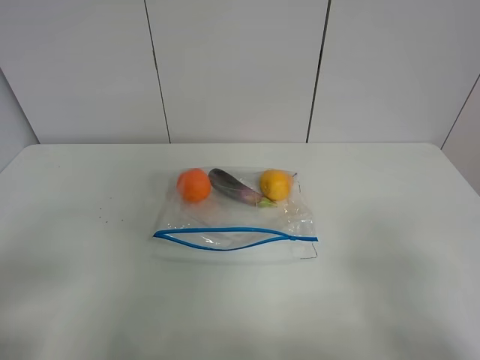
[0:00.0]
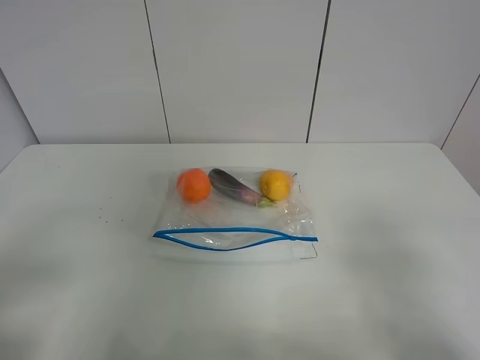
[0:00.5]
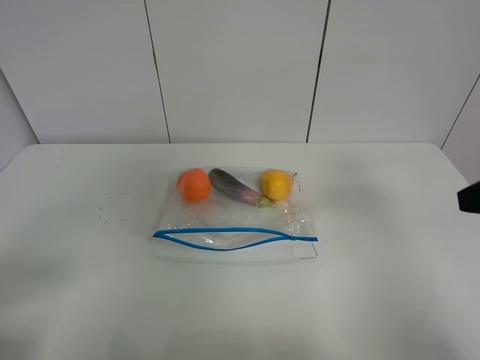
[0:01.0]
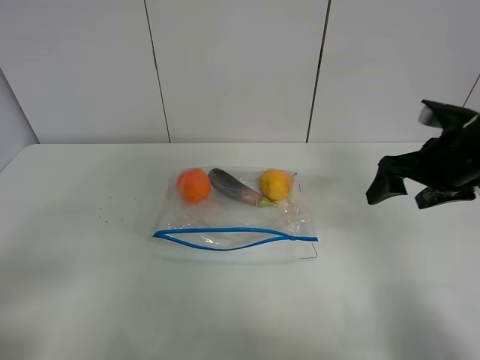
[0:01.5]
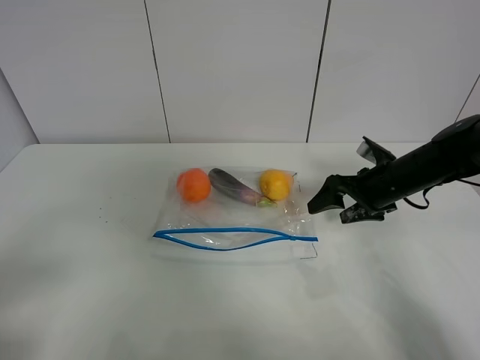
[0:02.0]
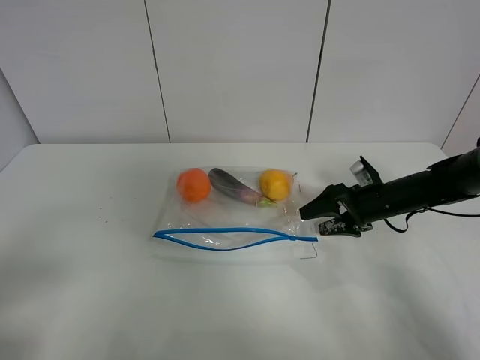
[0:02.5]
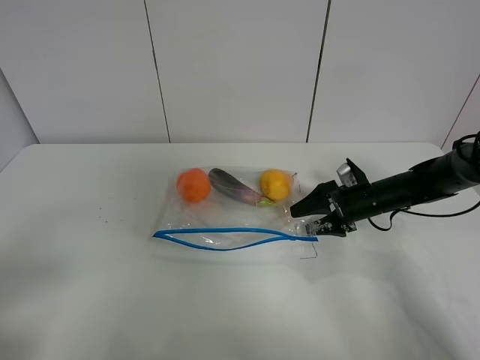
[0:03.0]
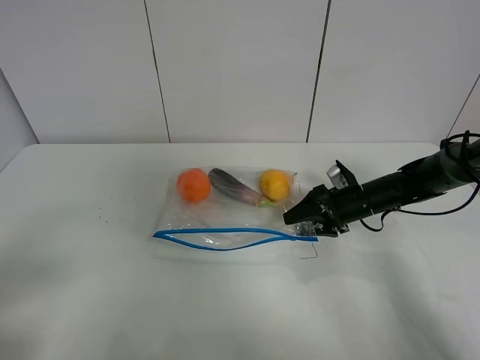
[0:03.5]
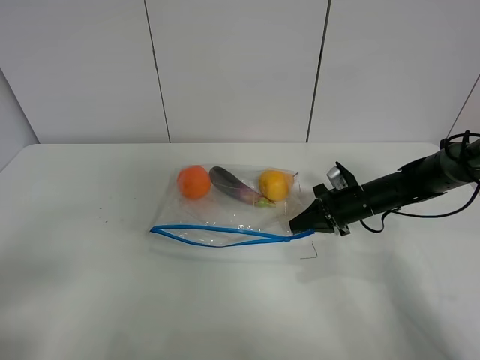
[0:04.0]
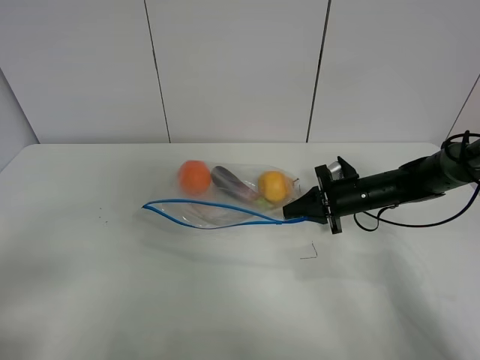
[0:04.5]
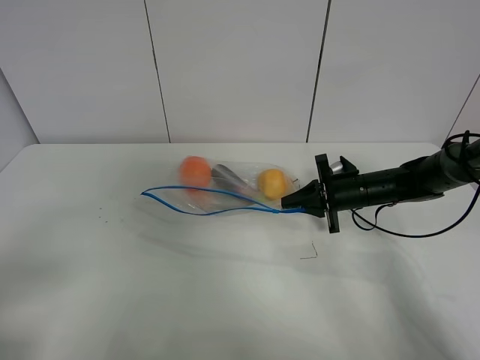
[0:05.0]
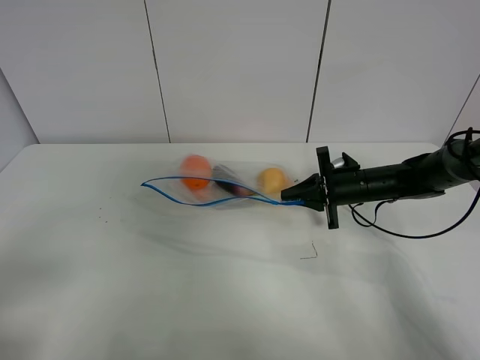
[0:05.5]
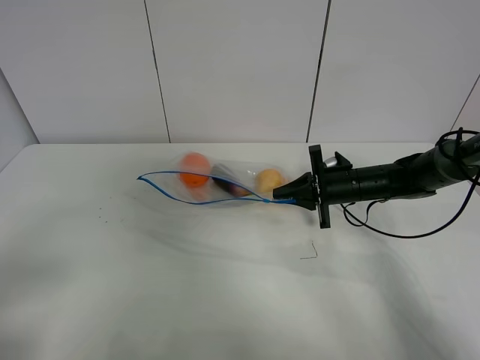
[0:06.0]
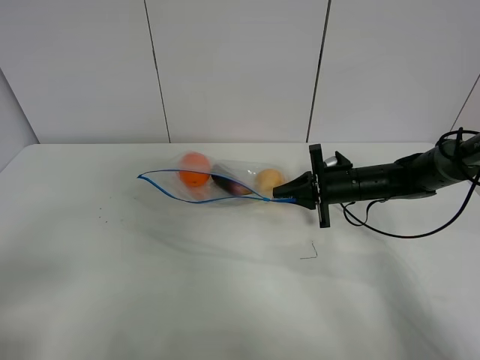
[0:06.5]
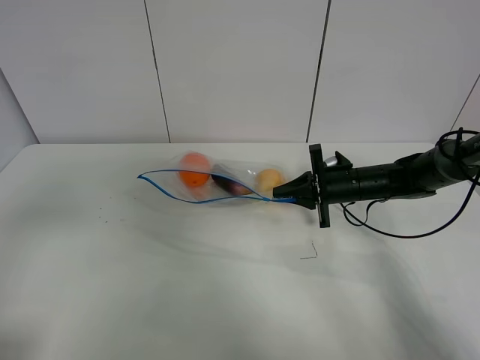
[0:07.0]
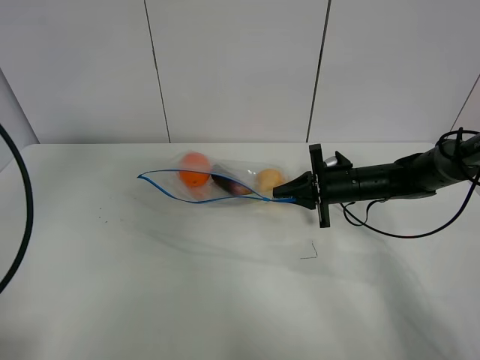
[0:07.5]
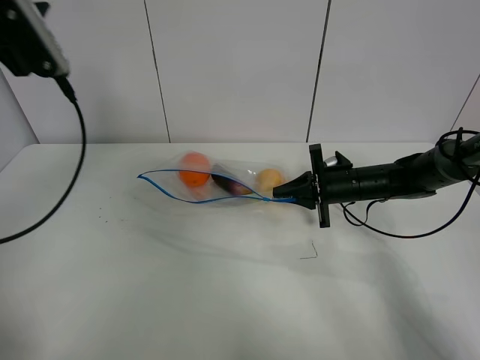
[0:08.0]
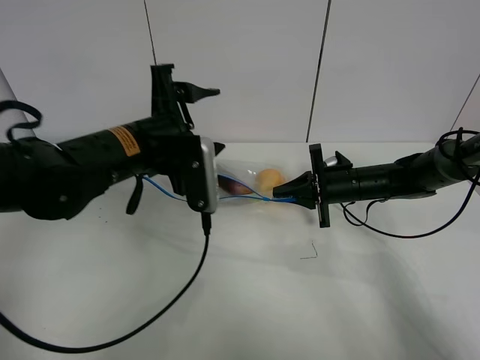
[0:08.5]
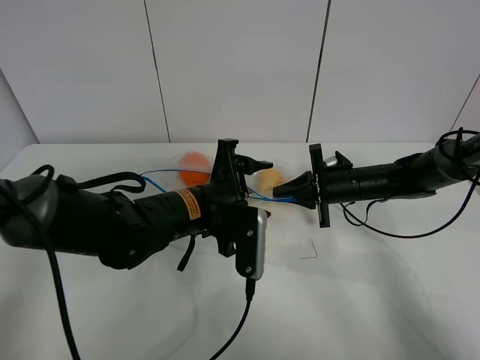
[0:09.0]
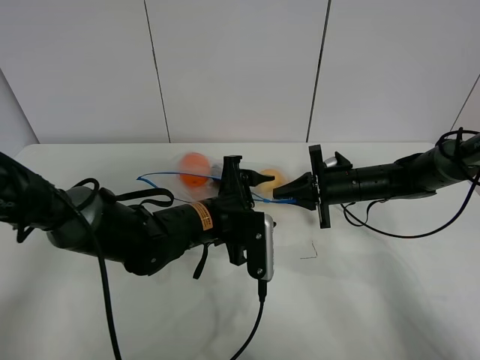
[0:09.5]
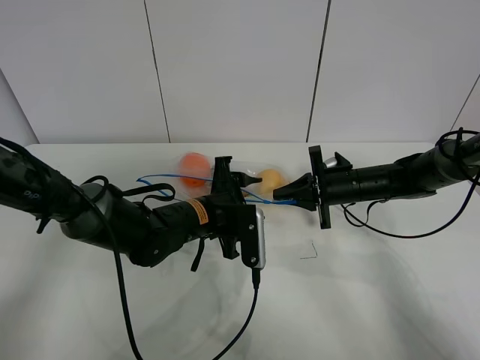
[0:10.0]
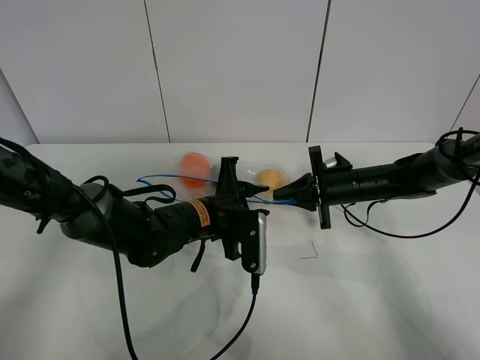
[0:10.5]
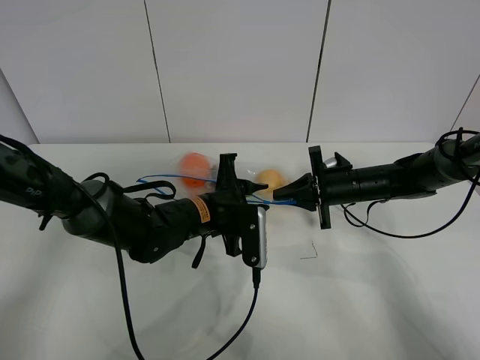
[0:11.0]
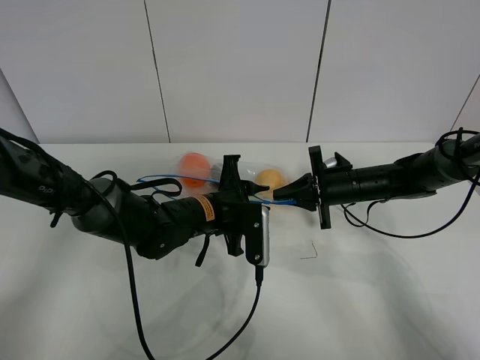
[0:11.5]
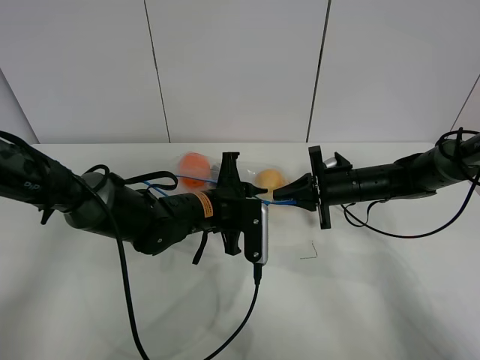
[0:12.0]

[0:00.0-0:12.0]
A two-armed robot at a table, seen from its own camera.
Step, 0:00.0 to 0:03.5: Grasp the fruit bag with right gripper.
Step, 0:04.0 to 0:06.0: Lift the fruit bag with your right gripper.
0:00.0 to 0:02.0: The right gripper goes some 35 cm forward.
0:02.0 to 0:04.0: The right gripper travels downward by about 5 cm, and closes its fingers.
0:06.0 to 0:08.0: The left gripper travels forward and upward by roughly 30 cm.
0:08.0 to 0:10.0: The left gripper heads downward and to the right, covering roughly 35 cm.
0:10.0 to 0:12.0: The left gripper closes up.

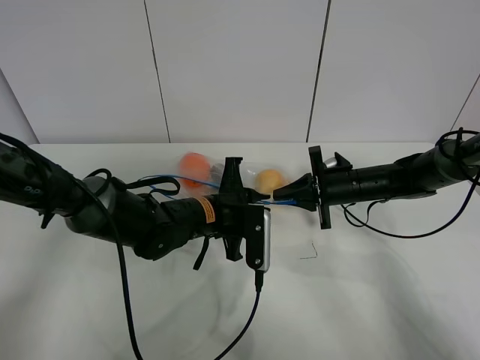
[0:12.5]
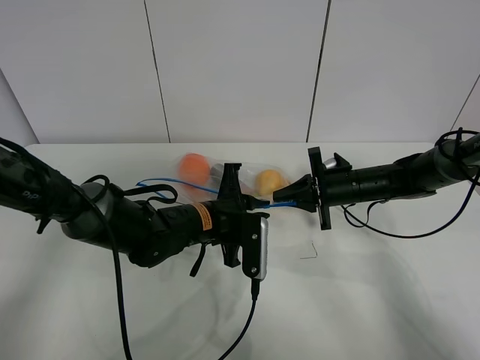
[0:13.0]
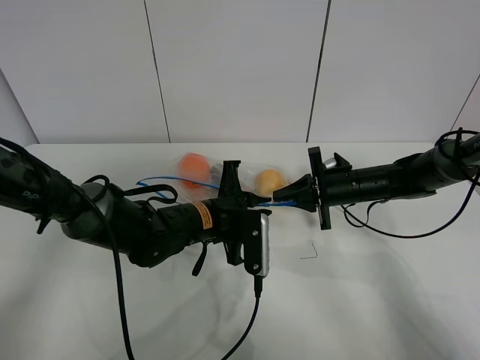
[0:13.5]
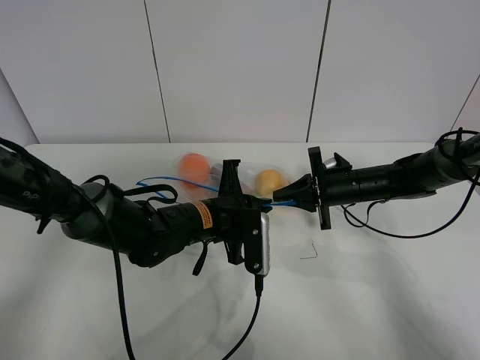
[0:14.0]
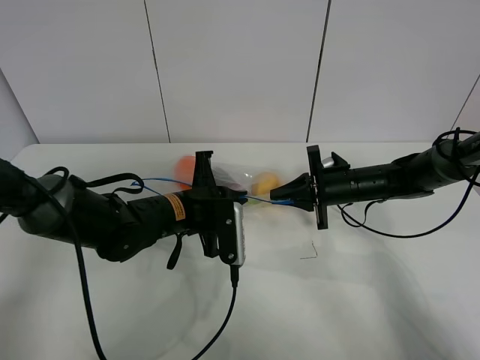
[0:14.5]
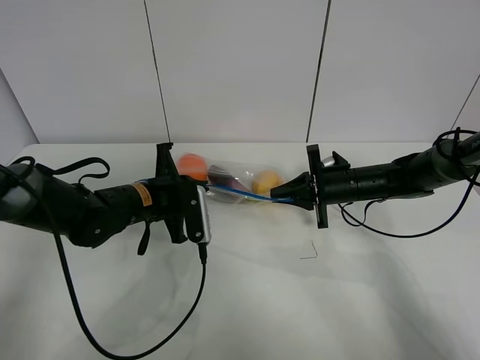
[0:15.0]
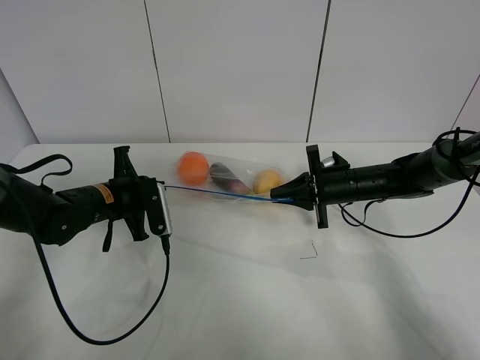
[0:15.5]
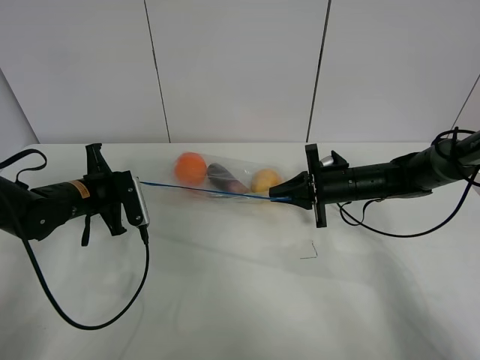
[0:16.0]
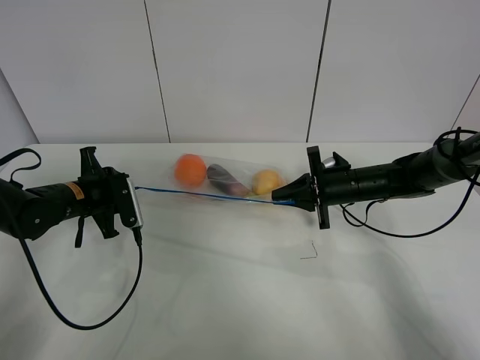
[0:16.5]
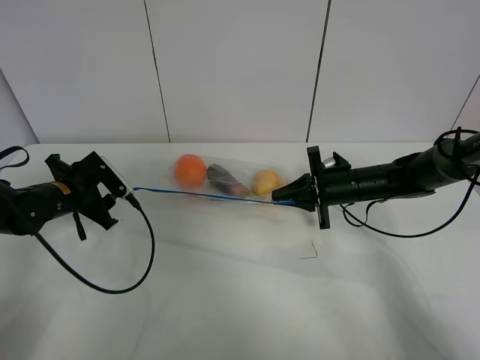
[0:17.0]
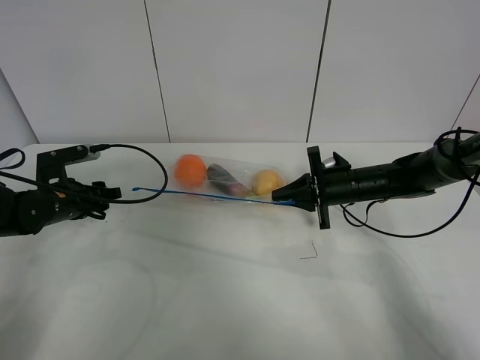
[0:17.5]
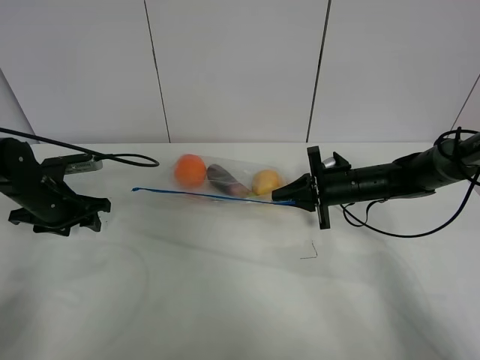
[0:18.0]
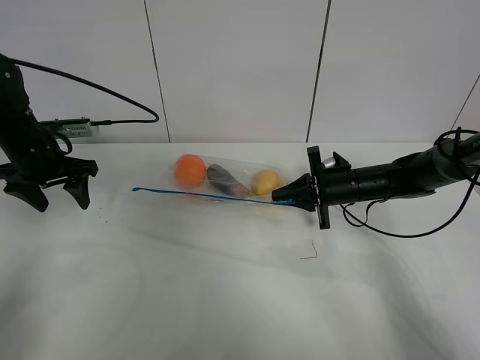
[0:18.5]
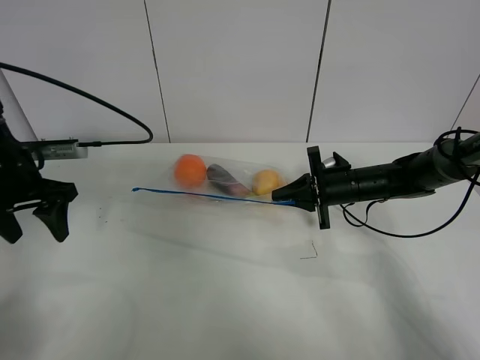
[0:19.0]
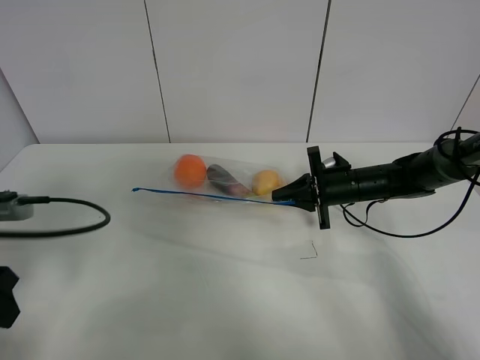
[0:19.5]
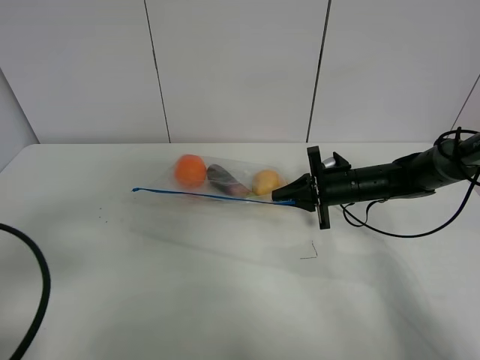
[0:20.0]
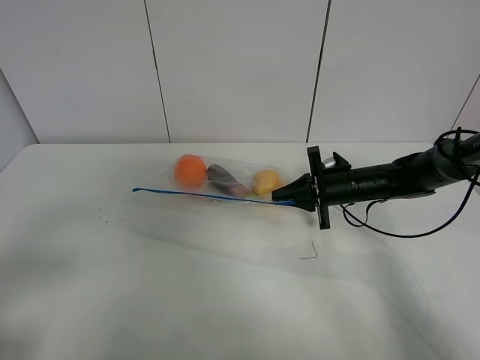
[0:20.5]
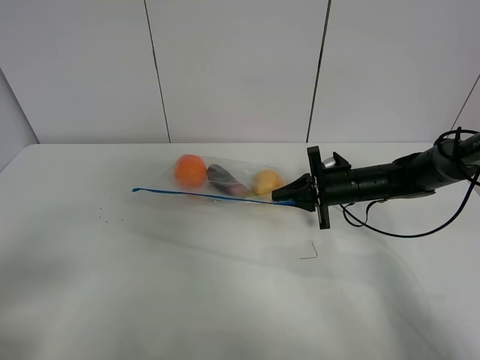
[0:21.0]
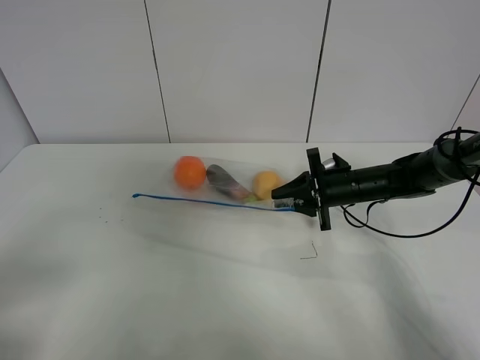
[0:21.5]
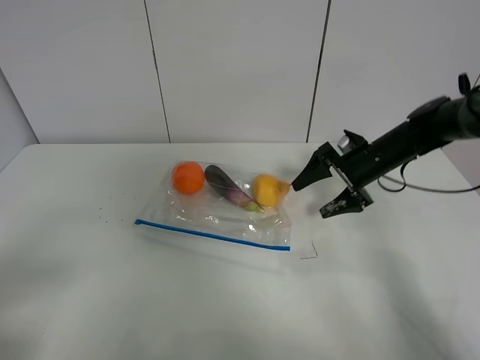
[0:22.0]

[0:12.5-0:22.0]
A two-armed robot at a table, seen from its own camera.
Step, 0:12.5 to 0:16.5: Pull the fruit bag with left gripper.
Step, 0:17.0 to 0:22.0: Place the fruit bag with right gripper.
0:12.5 to 0:14.5: The grippers make only small movements.
0:14.5 to 0:16.5: The left gripper is displaced to the left by approximately 15 cm, and opens.
0:16.5 to 0:18.0: The left gripper heads to the left, covering roughly 5 cm.
0:18.0 to 0:20.0: The left gripper is displaced backward and upward by approximately 30 cm.
0:20.0 to 0:22.0: The left gripper is displaced backward by some 10 cm. Meanwhile the right gripper travels upward by some 5 cm, and opens its fingers.

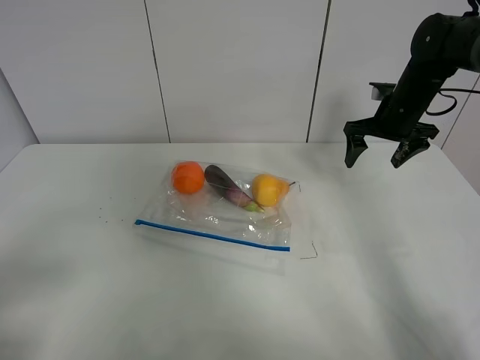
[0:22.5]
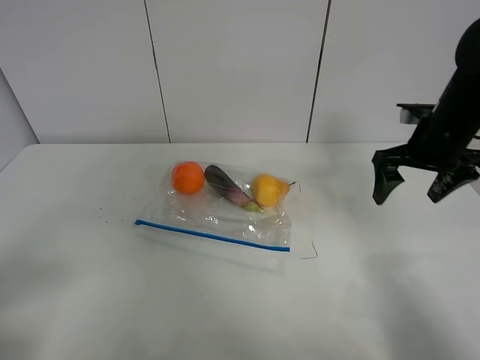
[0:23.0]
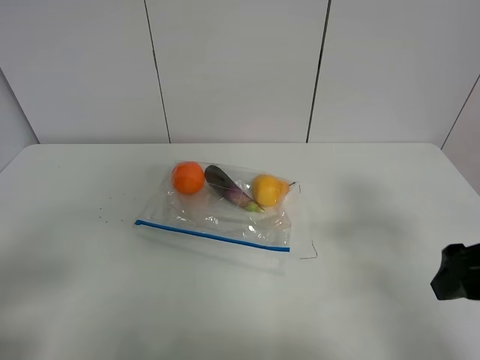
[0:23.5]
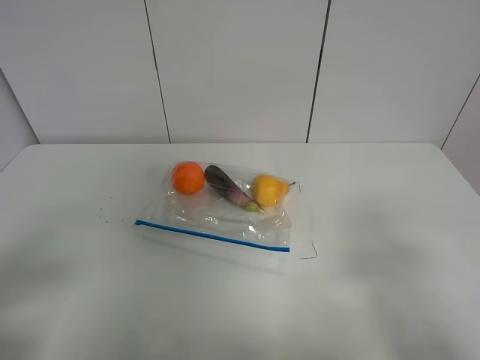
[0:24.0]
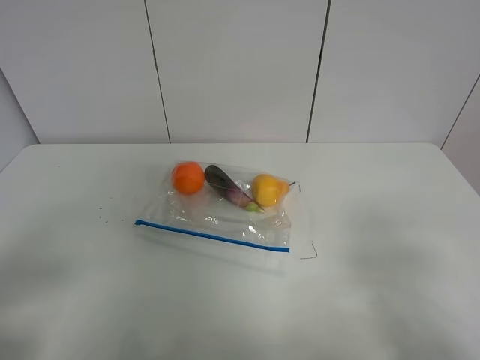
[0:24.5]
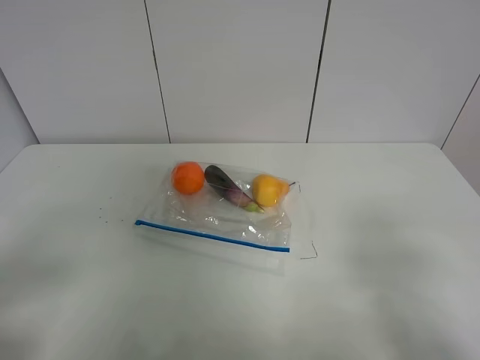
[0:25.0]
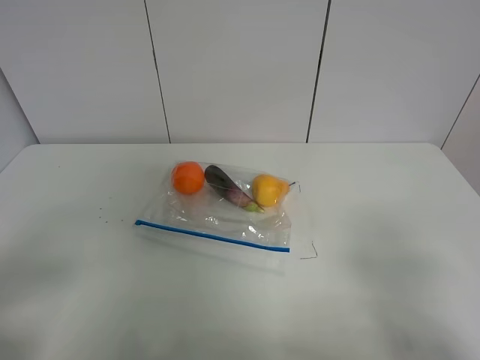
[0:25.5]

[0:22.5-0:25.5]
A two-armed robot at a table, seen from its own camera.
0:22.5 to 0:24.0: The right gripper travels backward by about 40 cm.

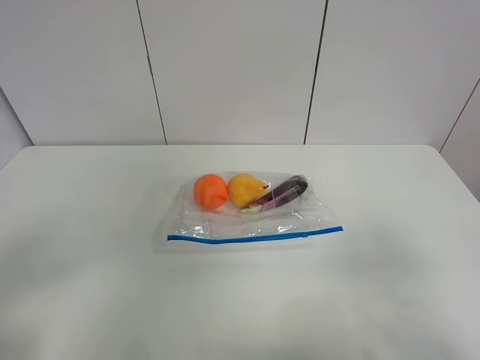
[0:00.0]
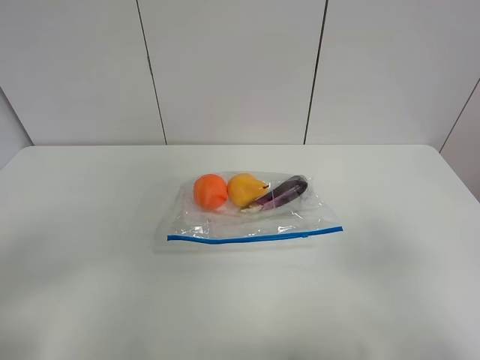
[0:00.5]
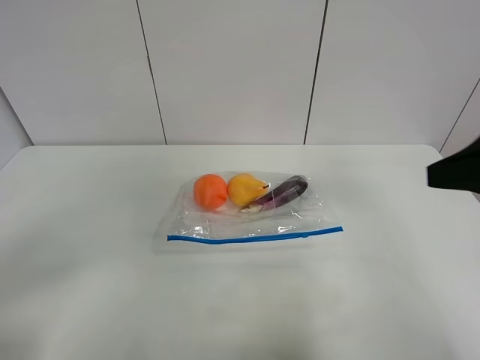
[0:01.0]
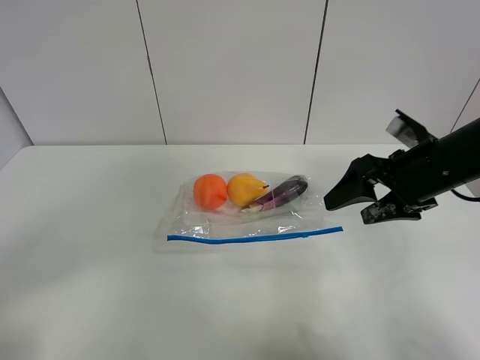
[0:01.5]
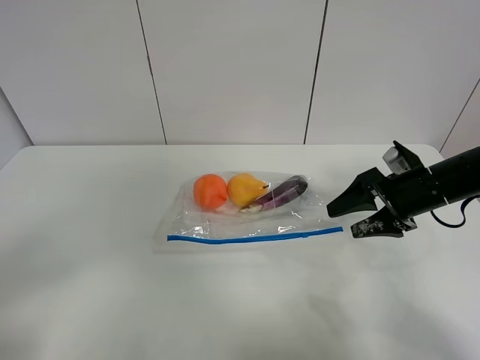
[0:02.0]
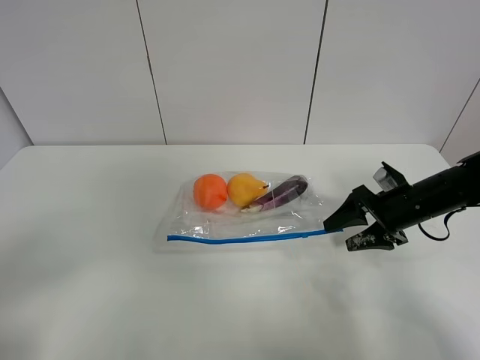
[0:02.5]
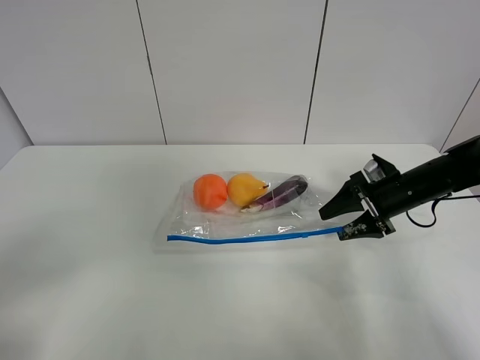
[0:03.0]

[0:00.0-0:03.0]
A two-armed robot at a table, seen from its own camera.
0:00.0 to 0:01.5: The right gripper moves forward, some 25 cm.
0:01.5 to 0:03.0: The right gripper shifts approximately 15 cm downward and forward.
